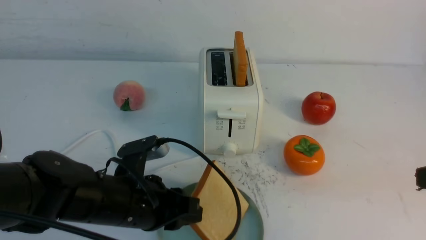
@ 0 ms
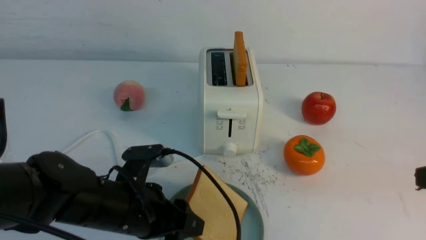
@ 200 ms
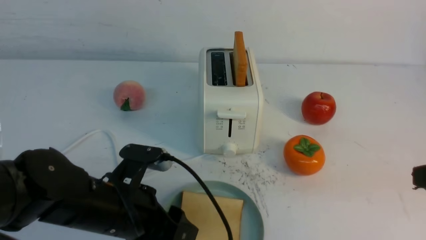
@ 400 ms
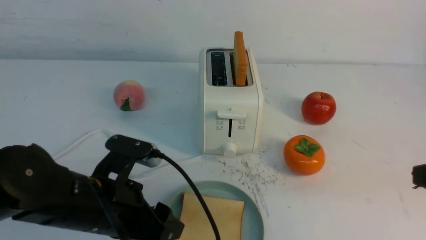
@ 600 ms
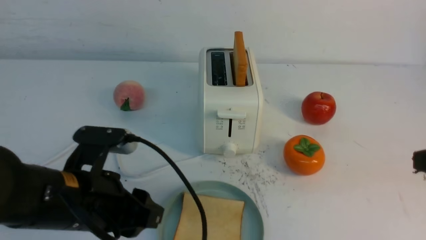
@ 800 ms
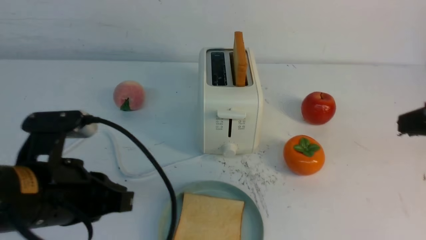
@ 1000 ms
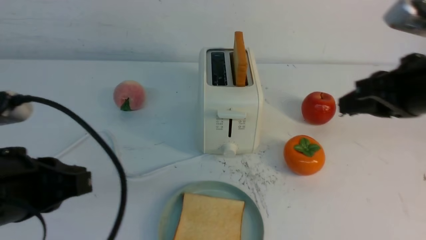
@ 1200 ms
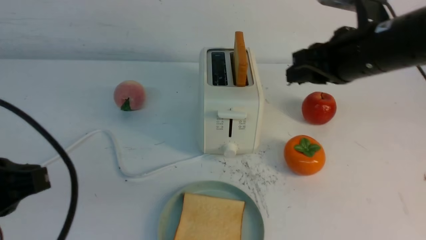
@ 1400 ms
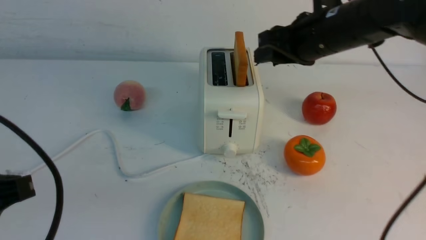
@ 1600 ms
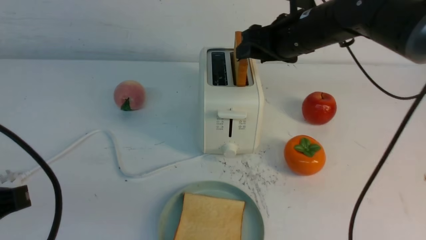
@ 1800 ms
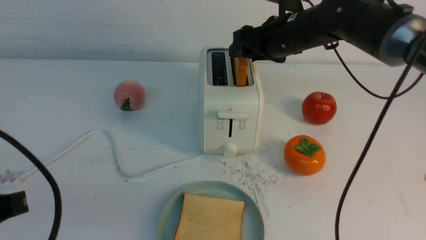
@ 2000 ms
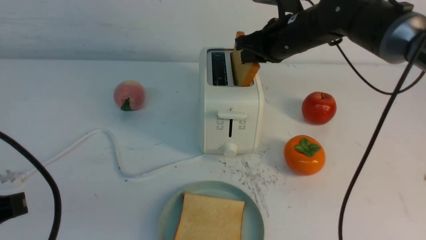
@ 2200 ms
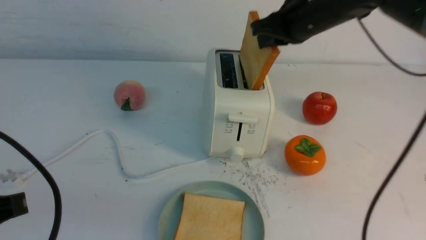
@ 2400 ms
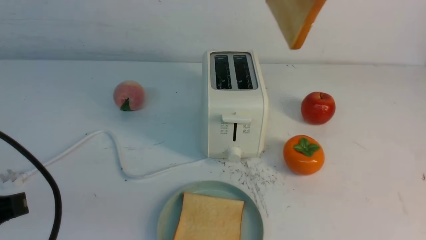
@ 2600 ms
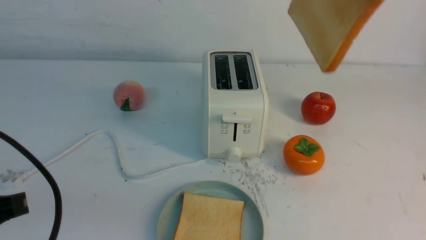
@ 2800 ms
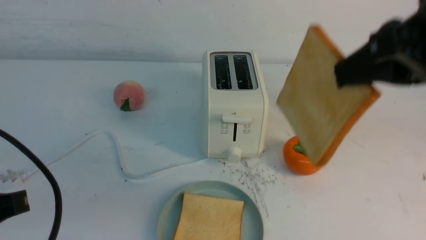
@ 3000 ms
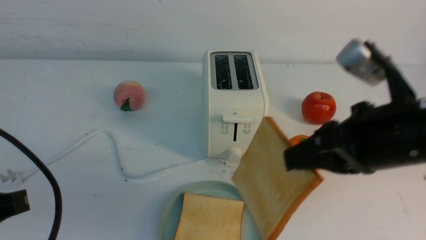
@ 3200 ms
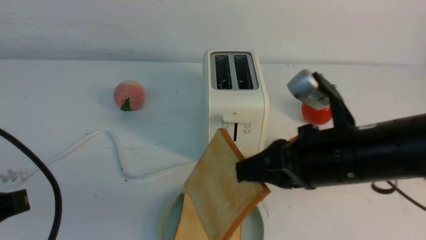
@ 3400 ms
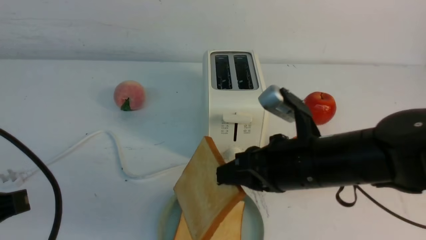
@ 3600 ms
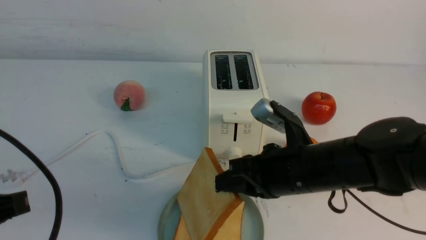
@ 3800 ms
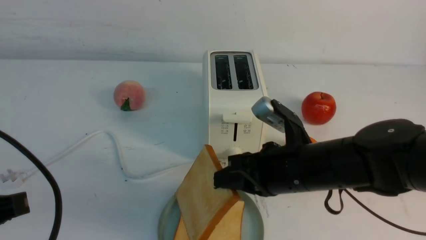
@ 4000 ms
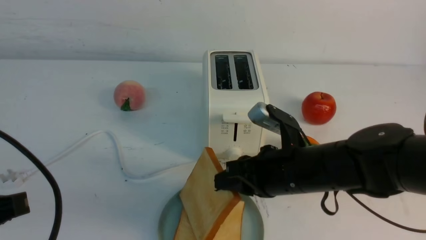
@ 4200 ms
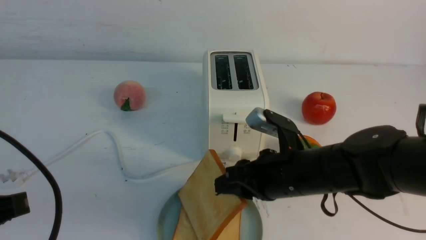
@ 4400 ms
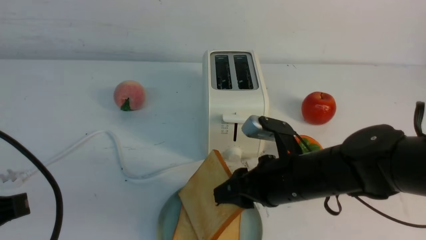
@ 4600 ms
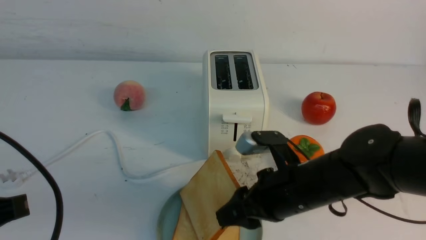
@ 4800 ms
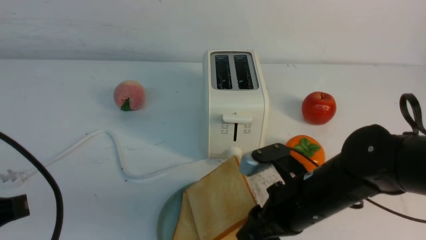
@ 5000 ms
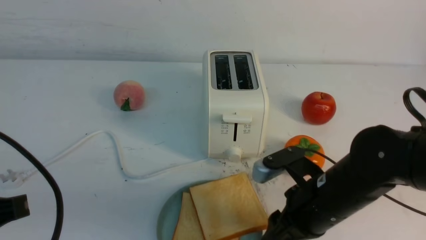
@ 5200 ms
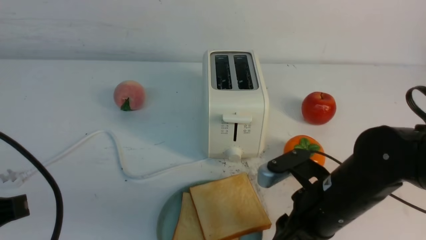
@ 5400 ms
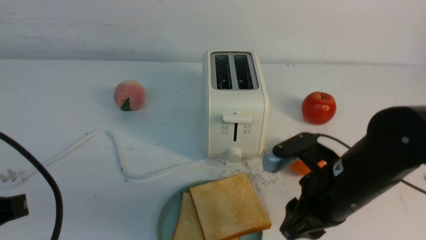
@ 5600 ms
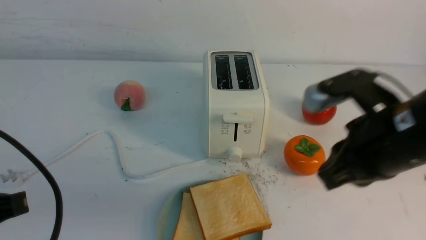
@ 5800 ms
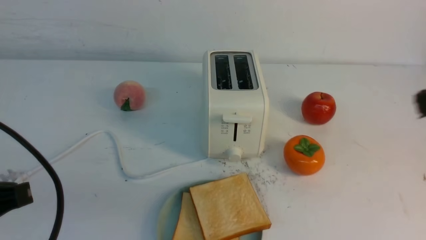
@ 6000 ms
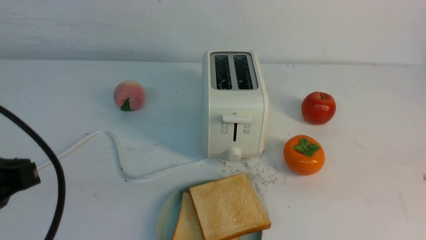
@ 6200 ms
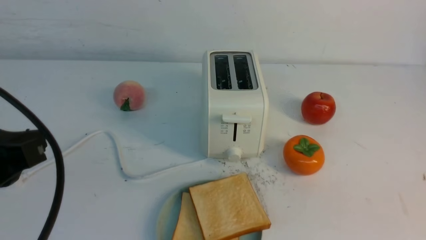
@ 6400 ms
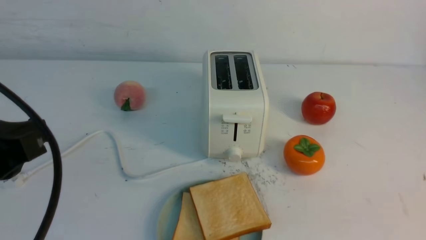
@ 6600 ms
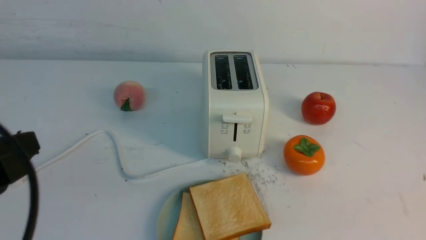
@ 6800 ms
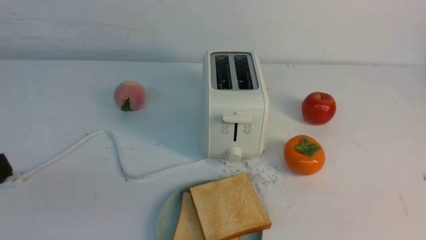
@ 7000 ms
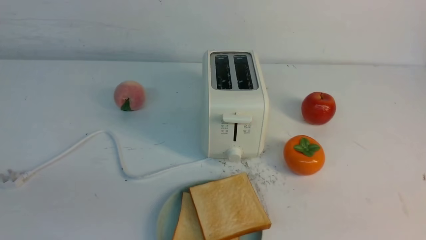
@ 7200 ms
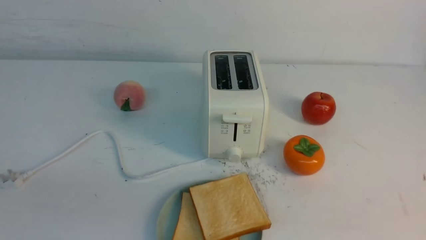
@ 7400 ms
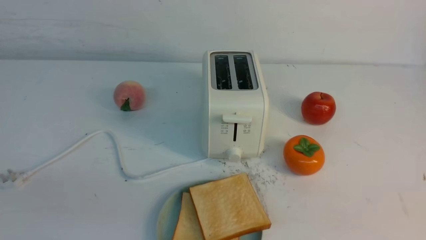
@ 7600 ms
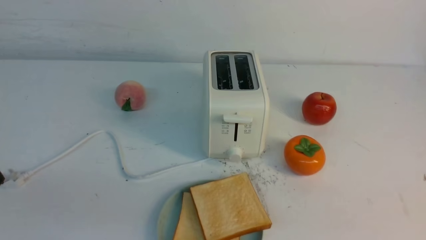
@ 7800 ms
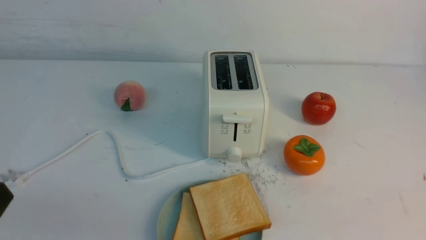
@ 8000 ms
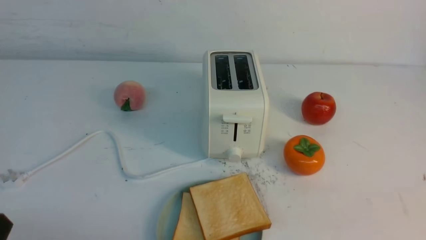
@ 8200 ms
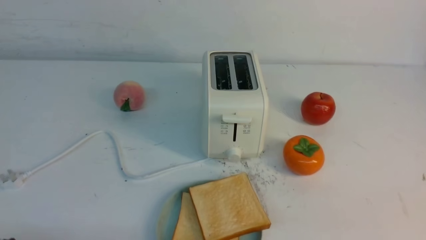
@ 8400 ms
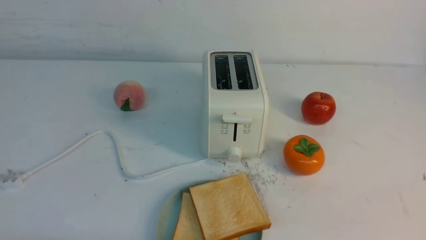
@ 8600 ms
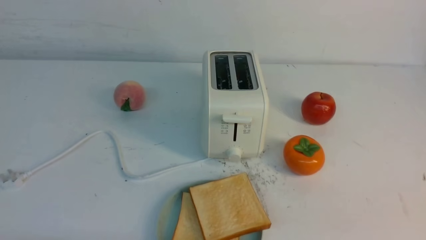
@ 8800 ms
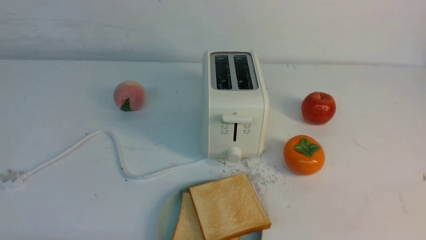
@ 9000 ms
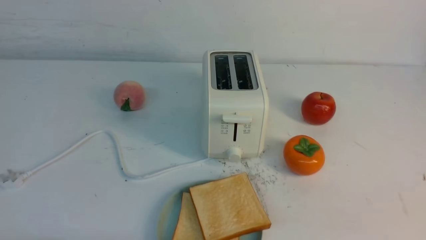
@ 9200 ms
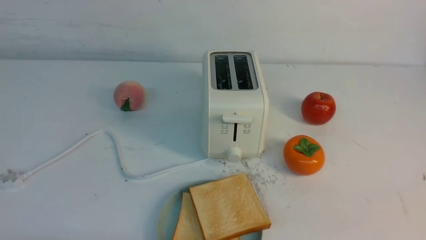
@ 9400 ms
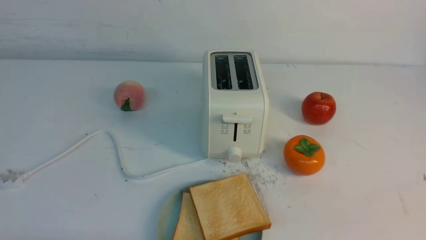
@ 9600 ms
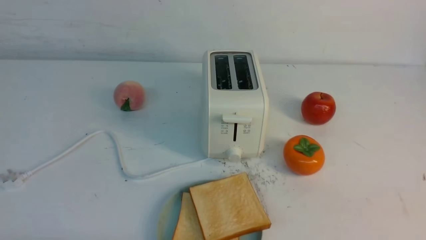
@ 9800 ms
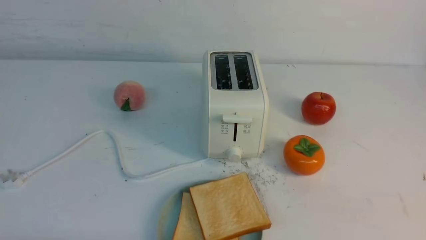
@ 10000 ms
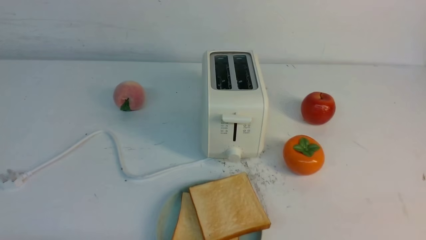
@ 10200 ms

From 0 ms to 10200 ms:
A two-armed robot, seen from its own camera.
Task of the whole recording: take toasted bread from bread machine on white table place on plate.
Step, from 1200 ms to 2400 ms: use the right arm to take out a slice of bread.
Step, from 2600 ms to 5600 ms: use the right arm to put a slice of bread into the plate.
From 0 ms to 1400 ms: The right gripper goes roughly 15 cm forward and to the left, while the left gripper travels upward, to the left and backward by some 15 cm, and closes up.
From 1400 ms to 3000 ms: The right gripper is displaced upward by some 10 cm, reaches roughly 15 cm forward, then returns, and opens, then closes once more.
From 3000 ms to 4400 ms: The right gripper is displaced downward by some 25 cm.
From 4400 ms to 5800 ms: The right gripper heads upward, to the right and backward, covering about 10 cm, and opens, then closes again.
From 5800 ms to 7200 ms: The right gripper moves backward and to the right, about 25 cm, and closes.

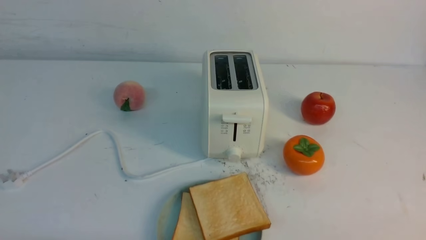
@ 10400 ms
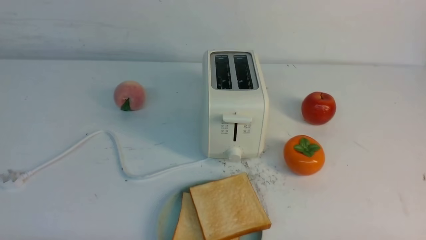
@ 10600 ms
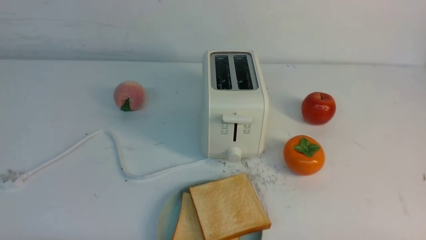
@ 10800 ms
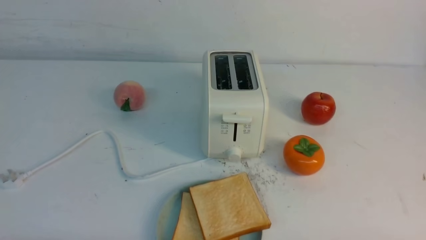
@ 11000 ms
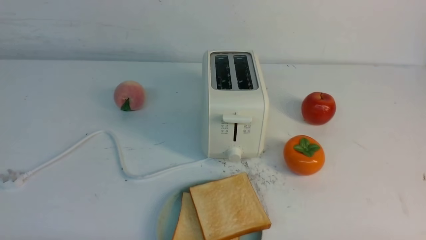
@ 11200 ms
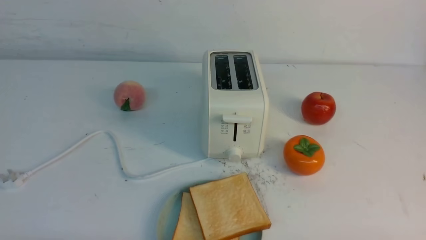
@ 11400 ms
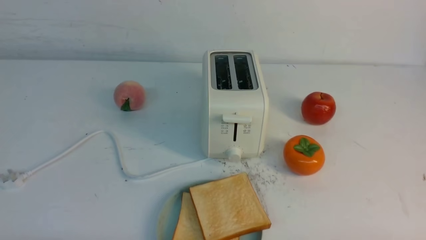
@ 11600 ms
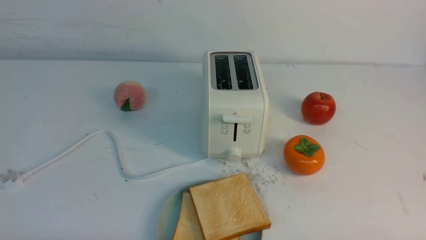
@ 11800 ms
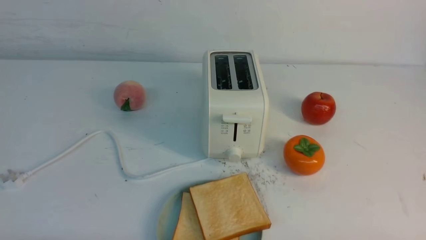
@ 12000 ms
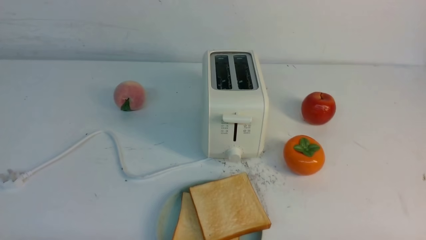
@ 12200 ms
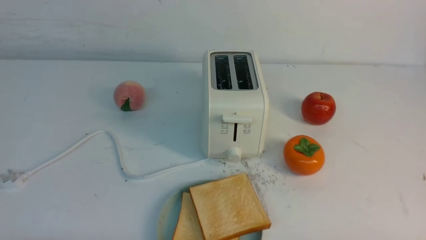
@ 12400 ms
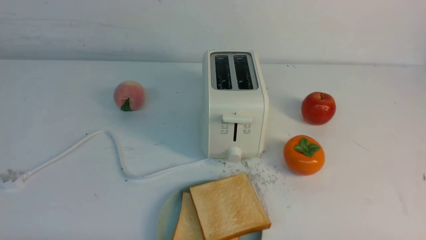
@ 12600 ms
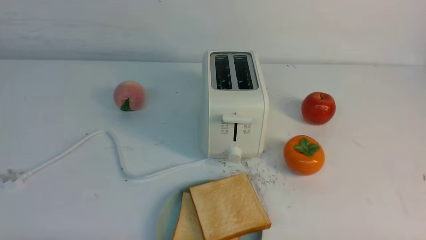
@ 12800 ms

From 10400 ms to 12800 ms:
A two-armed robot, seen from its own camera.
Task of the whole recording: take toasted bread from bread machine on white table place on plate.
From 11600 ms to 12800 ms: Neither gripper changes place.
